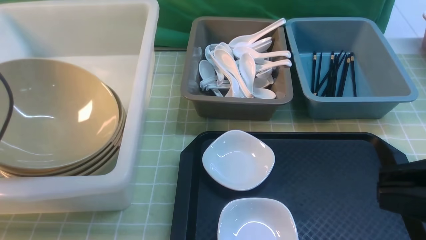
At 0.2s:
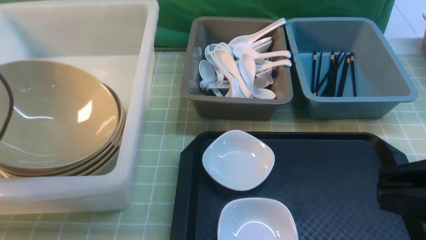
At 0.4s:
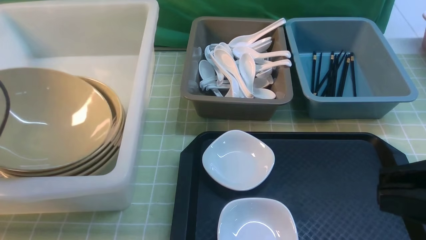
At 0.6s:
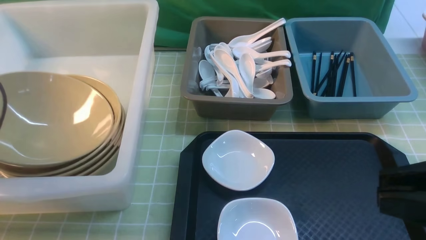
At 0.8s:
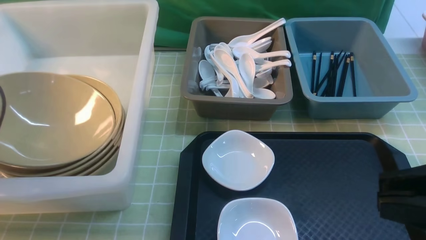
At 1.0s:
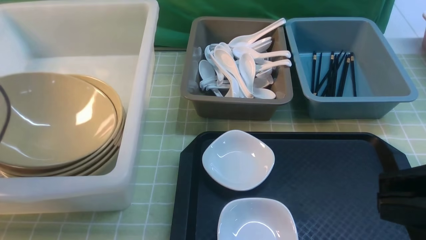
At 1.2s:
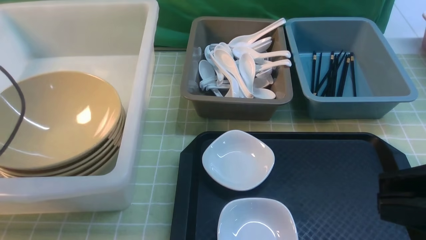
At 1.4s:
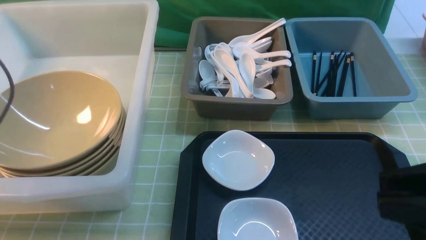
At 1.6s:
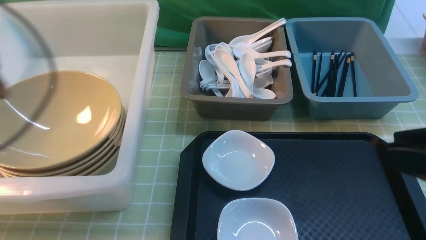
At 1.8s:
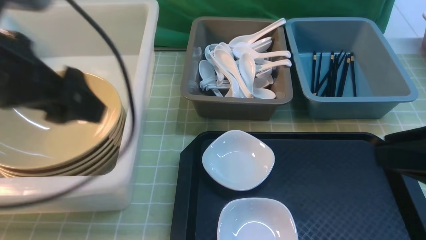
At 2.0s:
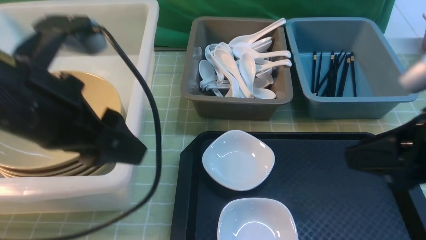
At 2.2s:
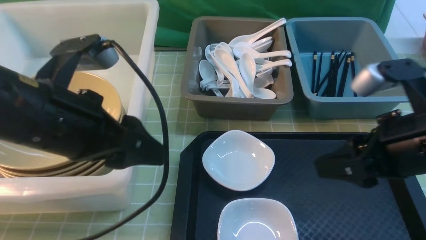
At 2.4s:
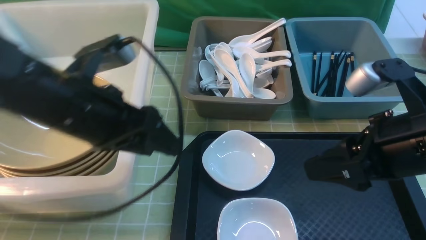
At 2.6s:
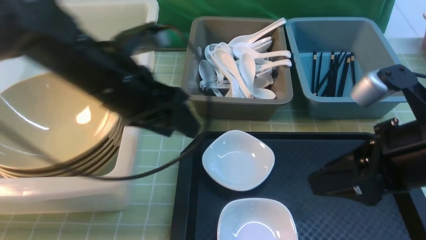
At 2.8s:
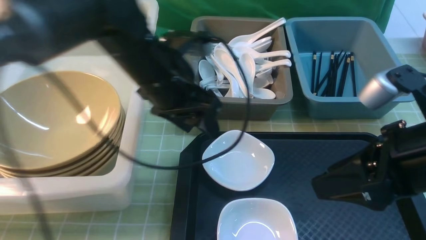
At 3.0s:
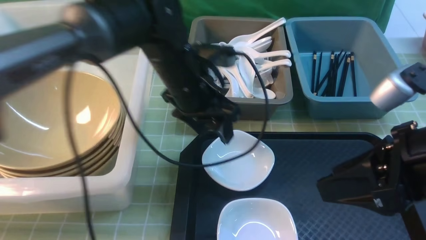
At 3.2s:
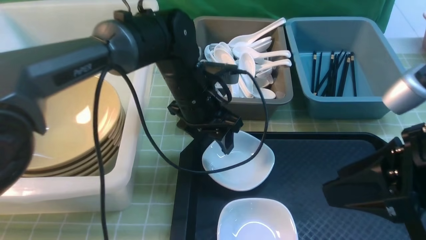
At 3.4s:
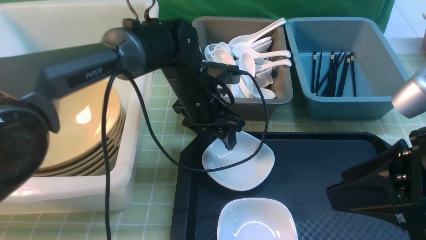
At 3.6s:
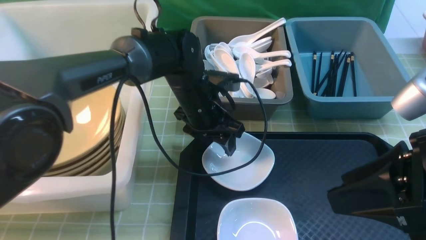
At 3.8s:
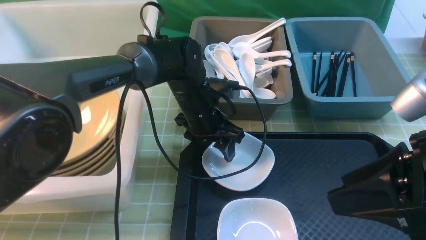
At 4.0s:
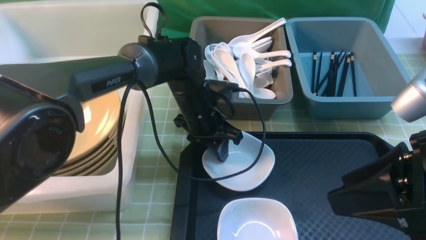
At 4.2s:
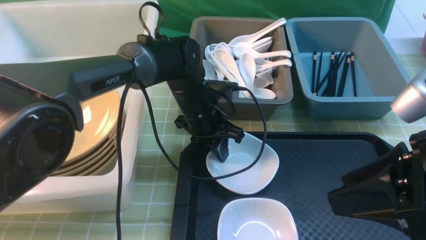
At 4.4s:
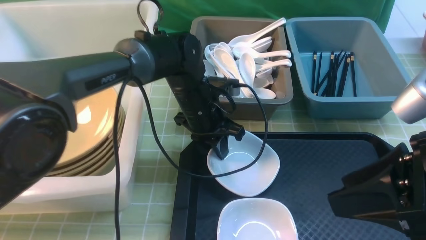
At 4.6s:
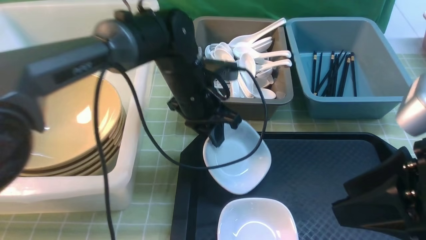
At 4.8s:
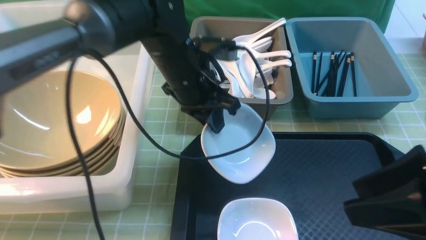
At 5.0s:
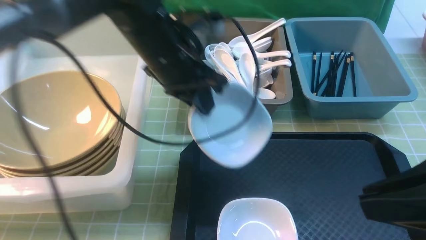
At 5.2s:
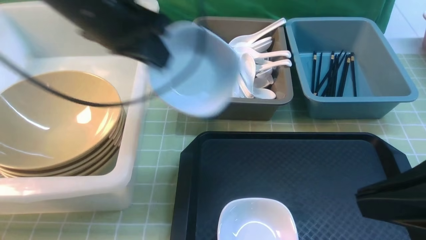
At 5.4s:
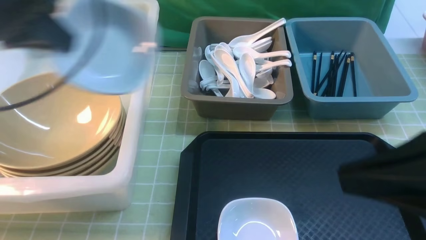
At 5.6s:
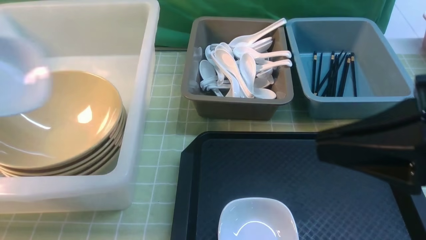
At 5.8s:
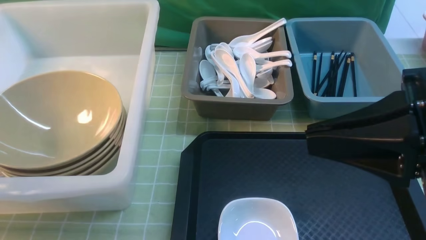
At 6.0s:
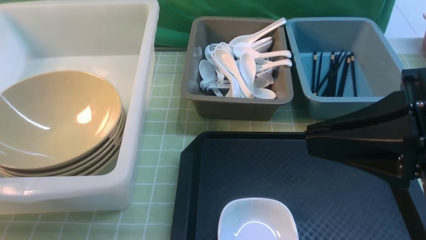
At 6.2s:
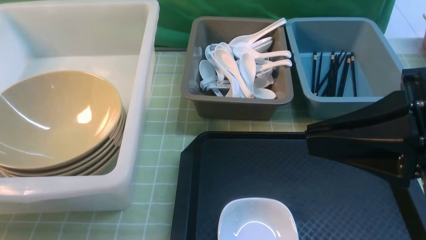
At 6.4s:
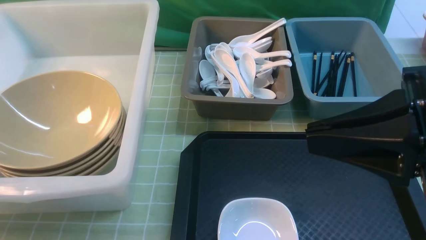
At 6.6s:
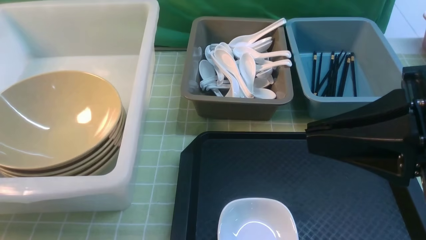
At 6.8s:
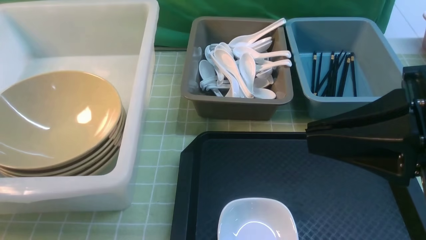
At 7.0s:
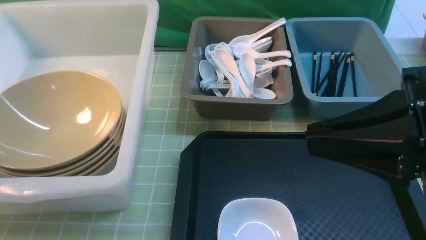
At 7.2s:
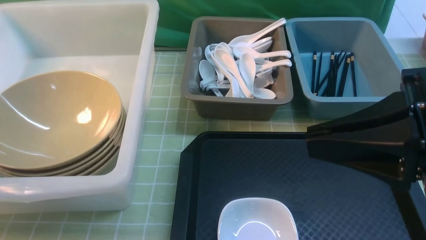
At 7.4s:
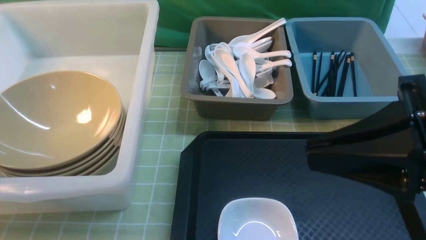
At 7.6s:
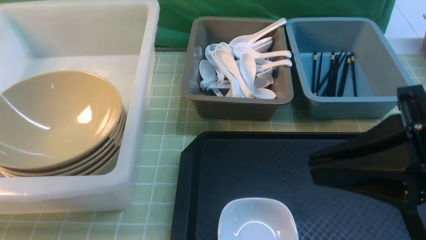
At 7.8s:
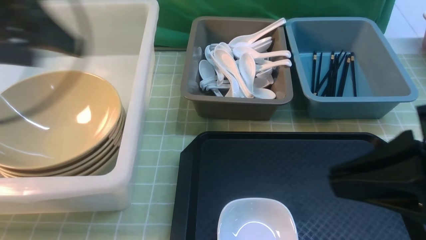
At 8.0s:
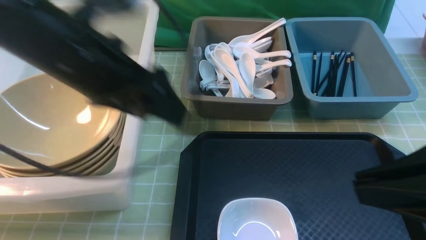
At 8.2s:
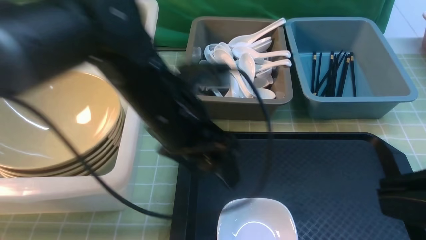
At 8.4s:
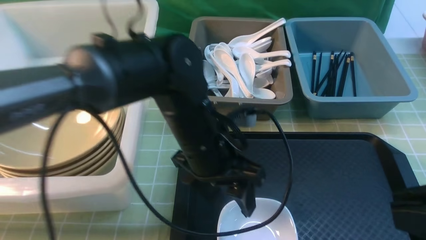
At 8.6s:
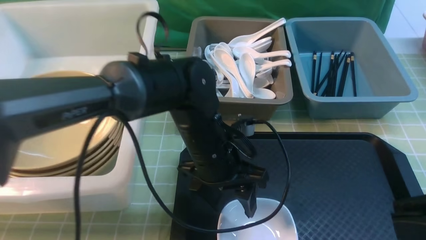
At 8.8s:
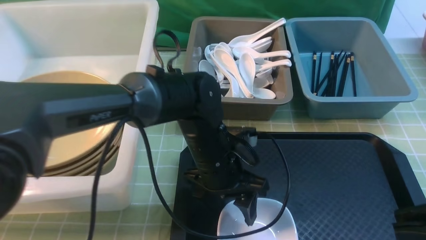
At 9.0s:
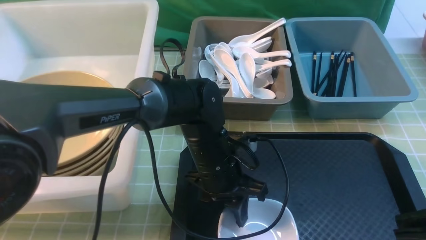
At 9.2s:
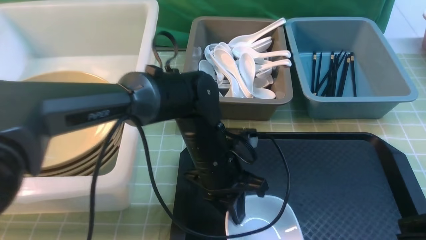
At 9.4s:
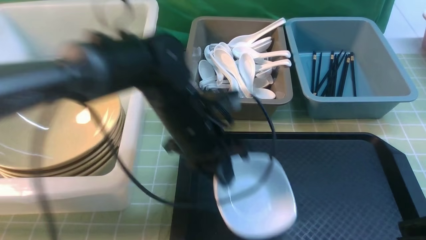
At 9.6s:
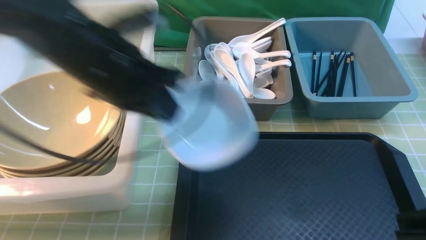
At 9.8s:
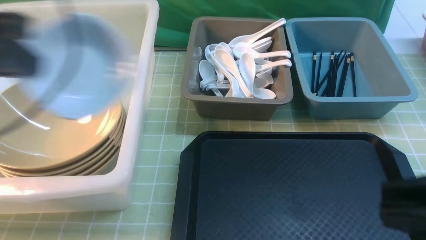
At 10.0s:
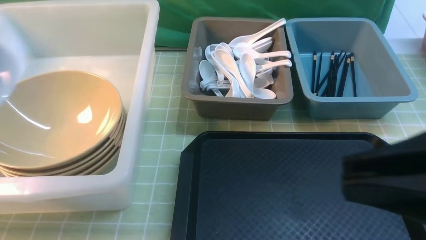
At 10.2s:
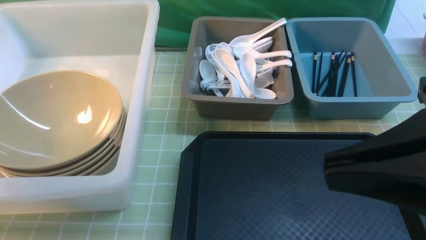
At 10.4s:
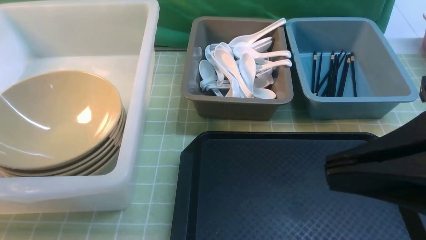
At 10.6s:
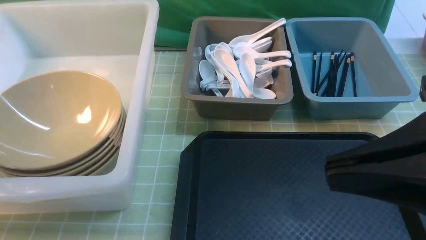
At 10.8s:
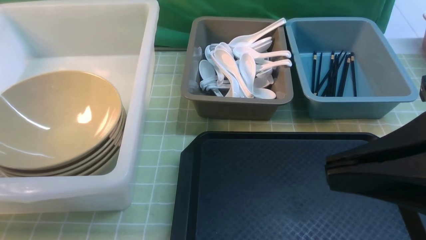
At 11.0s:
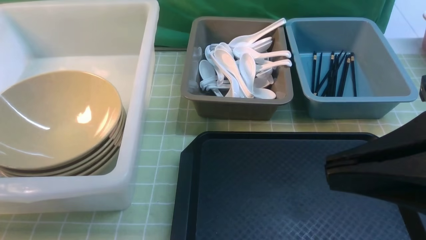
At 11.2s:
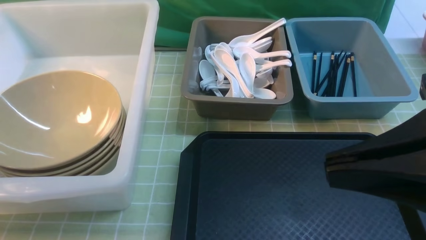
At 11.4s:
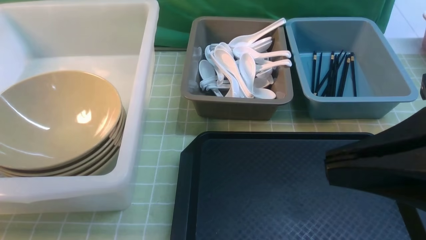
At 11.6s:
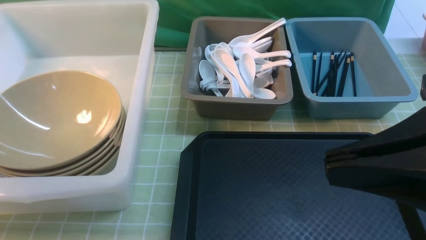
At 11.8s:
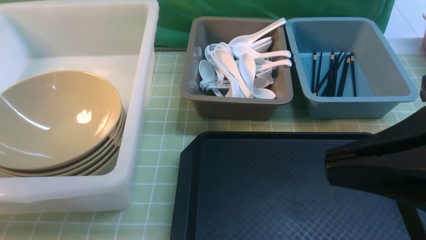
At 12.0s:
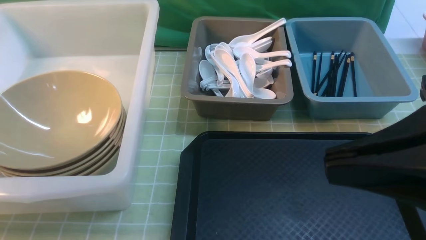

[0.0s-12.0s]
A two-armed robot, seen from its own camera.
Task of the whole recording: on green table put chopsticks spoon bowls plates into blue grey white boxes.
Step, 1.6s to 4.8s: use the left arm to grab the plate.
Step, 5.0s to 6.8s: use the left arm to put the plate into the large storage box on the left.
Step, 7.0s to 9.4s: use the left arm to grab the plate.
0.0s to 1.6s: The left gripper moves to the right and upward, approximately 10 cm, and opens up.
1.6s to 3.0s: The right gripper travels forward and downward by about 10 cm, and opens up, while the left gripper shifts roughly 30 cm to the right, downward and forward.
3.0s to 4.4s: The left gripper moves downward, about 5 cm, and closes up.
4.4s to 6.0s: The right gripper closes, while the left gripper travels to the left by some 40 cm.
6.0s to 7.6s: The left gripper is displaced to the right and forward by some 10 cm, and opens up.
7.6s to 9.0s: The left gripper moves to the right and downward, roughly 40 cm, and closes up; the right gripper moves backward, some 5 cm.
9.0s to 10.4s: The right gripper changes place by about 5 cm; the left gripper shifts approximately 40 cm to the left and upward.

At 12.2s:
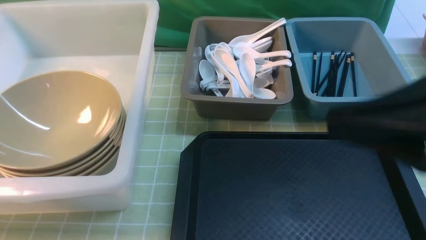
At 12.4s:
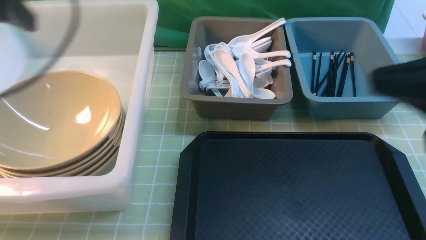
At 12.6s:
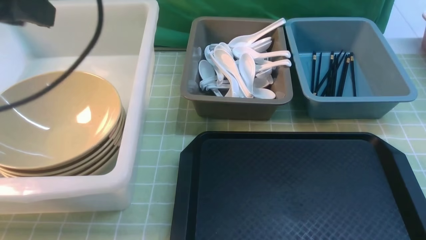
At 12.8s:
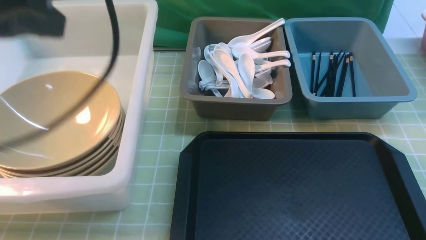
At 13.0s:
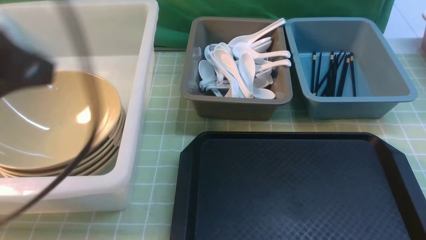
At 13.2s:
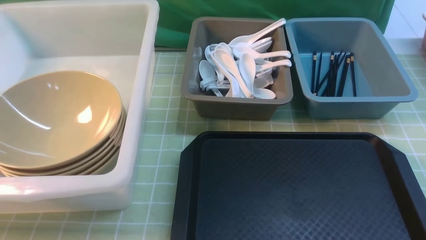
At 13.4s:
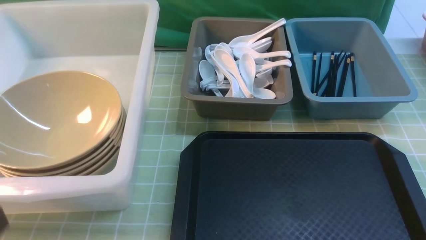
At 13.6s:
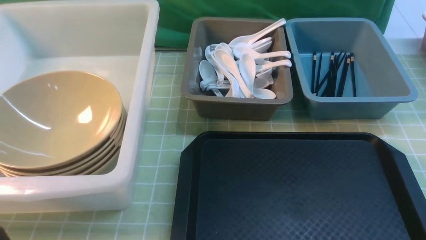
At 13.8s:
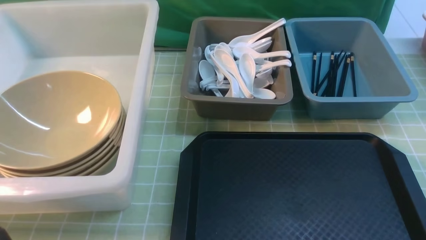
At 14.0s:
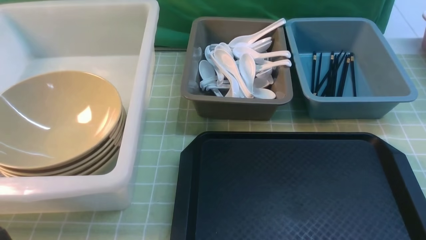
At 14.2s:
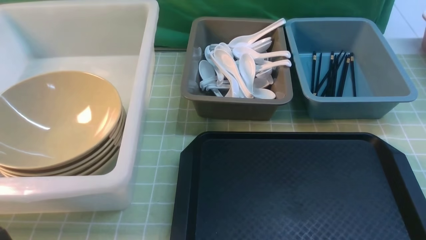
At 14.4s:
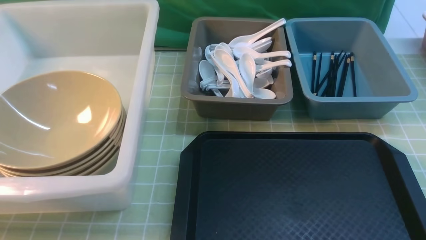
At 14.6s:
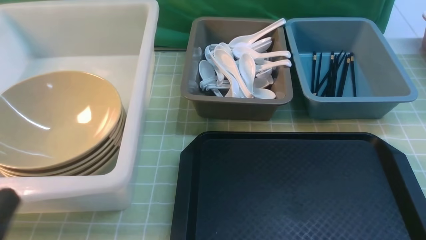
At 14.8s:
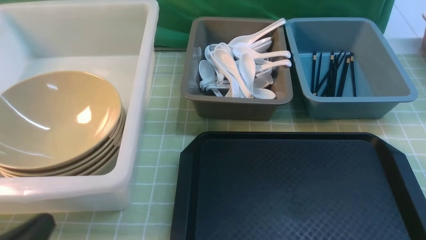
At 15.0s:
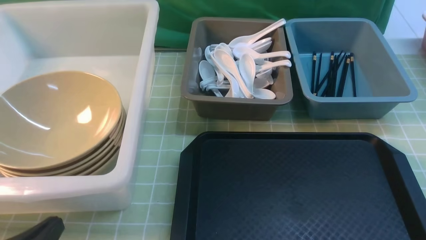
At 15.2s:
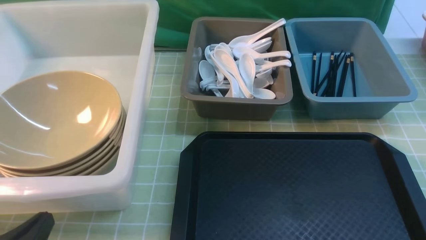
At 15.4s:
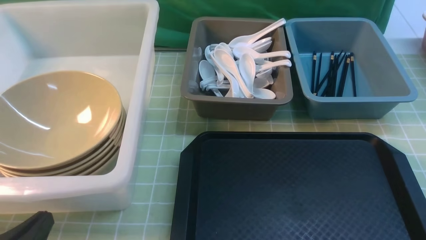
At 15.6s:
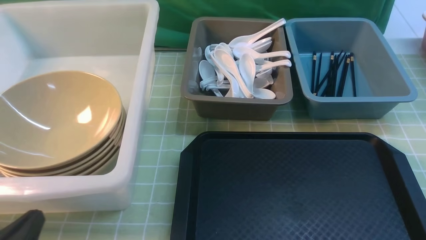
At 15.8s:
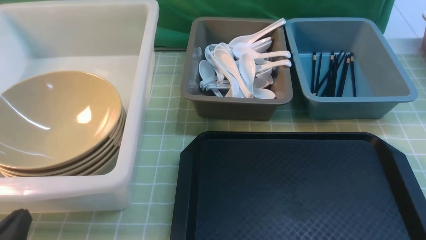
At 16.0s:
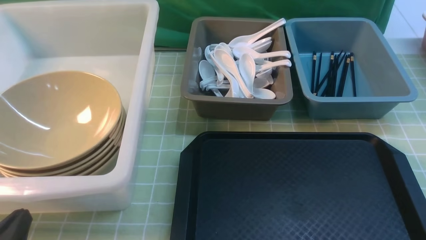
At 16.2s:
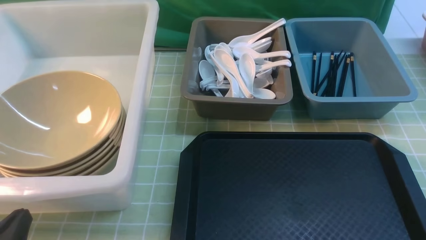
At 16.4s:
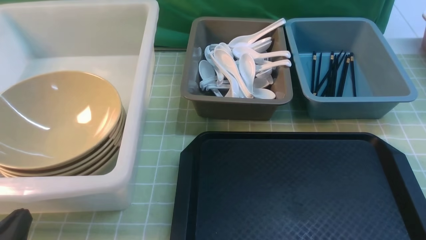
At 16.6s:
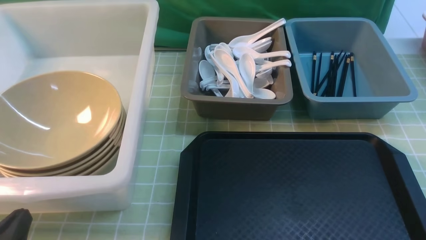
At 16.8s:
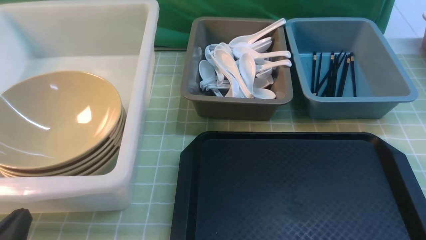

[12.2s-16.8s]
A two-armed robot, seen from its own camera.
Task of the whole recording: on green table put chopsticks spoon bowls plates into blue grey white boxes.
12.2s to 13.8s: The left gripper goes roughly 30 cm backward, and closes its fingers; the right gripper shifts some 20 cm backward, to the right and downward.
13.8s to 15.2s: The left gripper heads downward and forward, covering approximately 15 cm.
